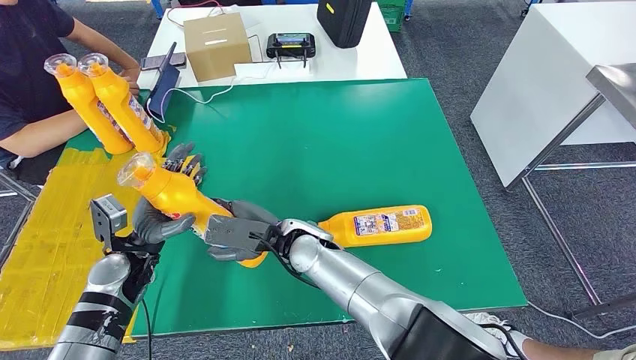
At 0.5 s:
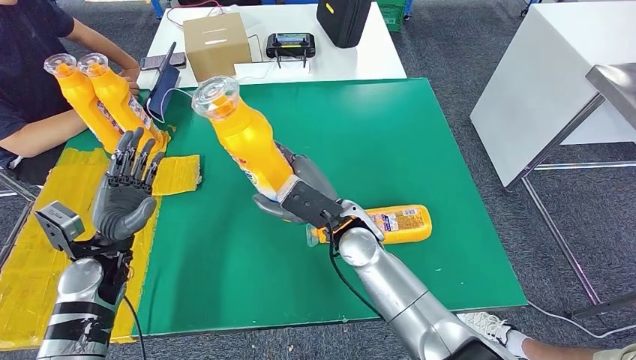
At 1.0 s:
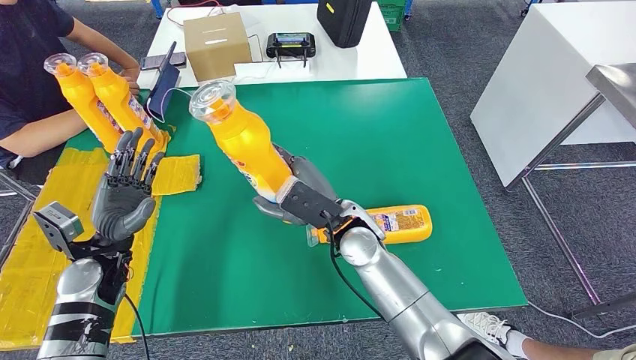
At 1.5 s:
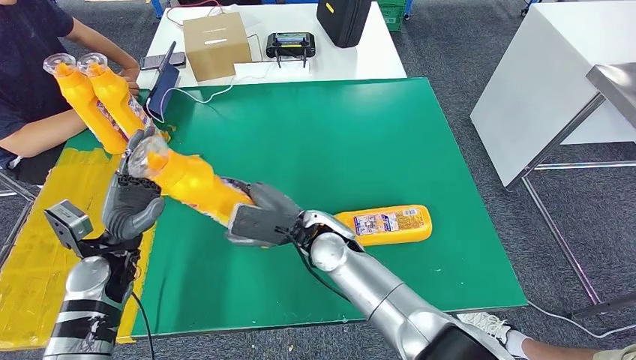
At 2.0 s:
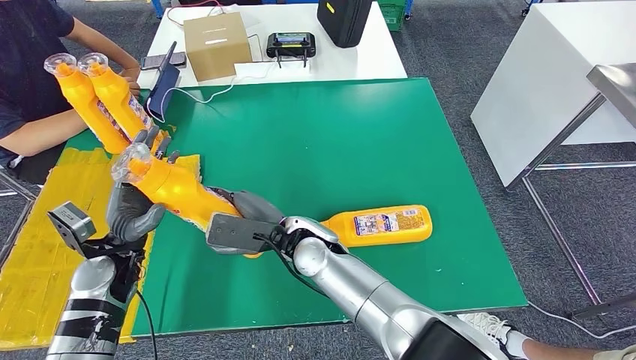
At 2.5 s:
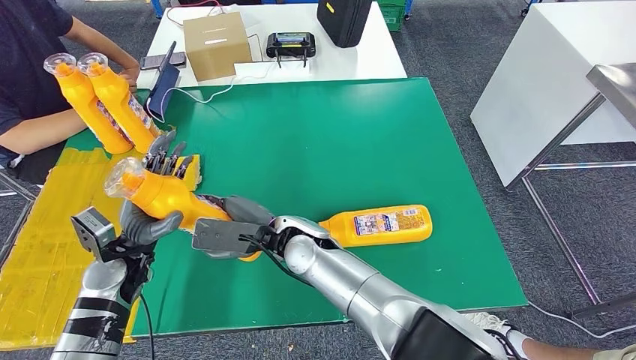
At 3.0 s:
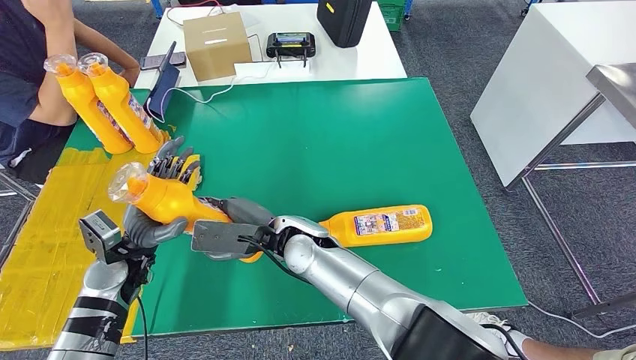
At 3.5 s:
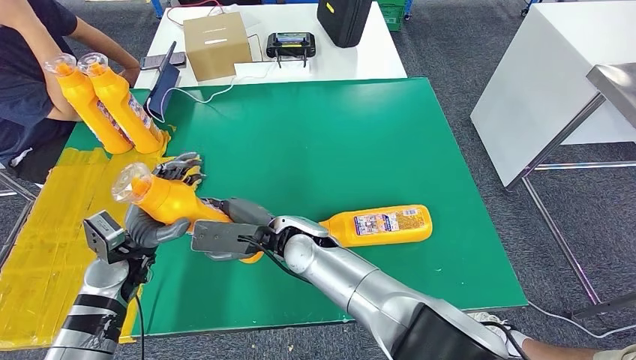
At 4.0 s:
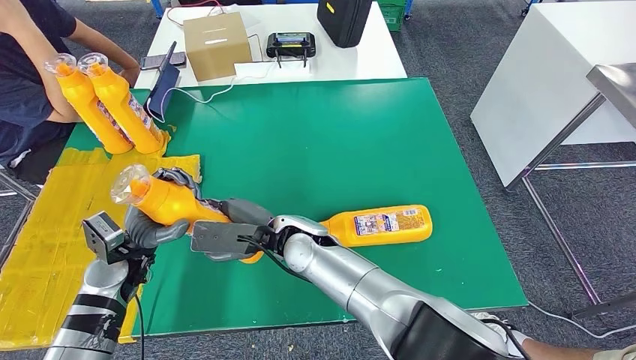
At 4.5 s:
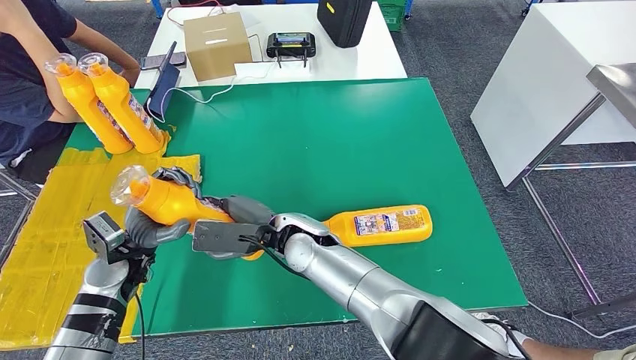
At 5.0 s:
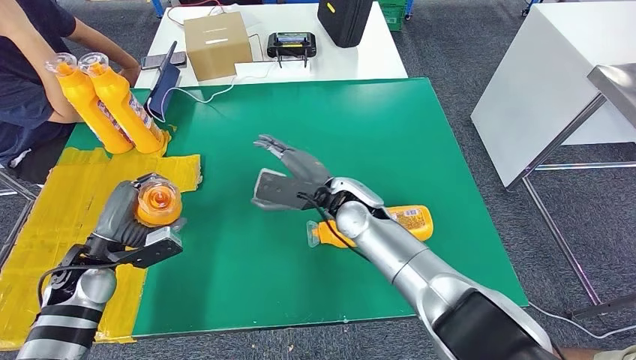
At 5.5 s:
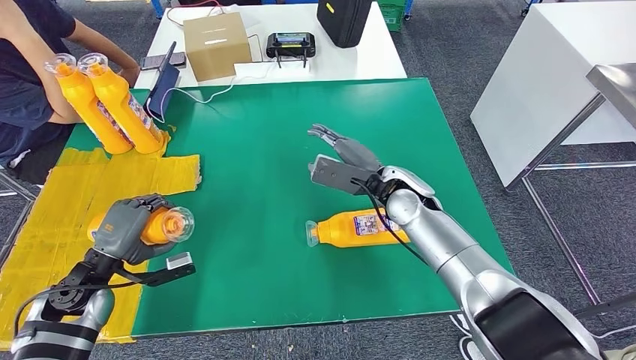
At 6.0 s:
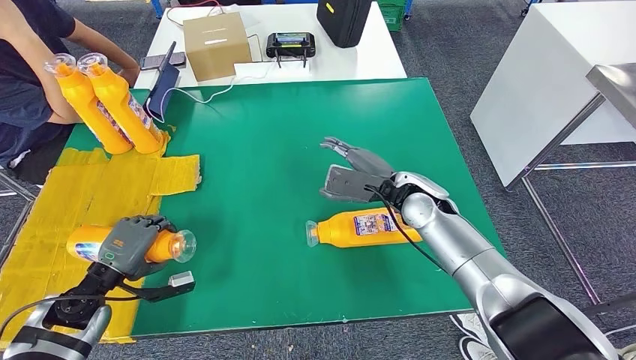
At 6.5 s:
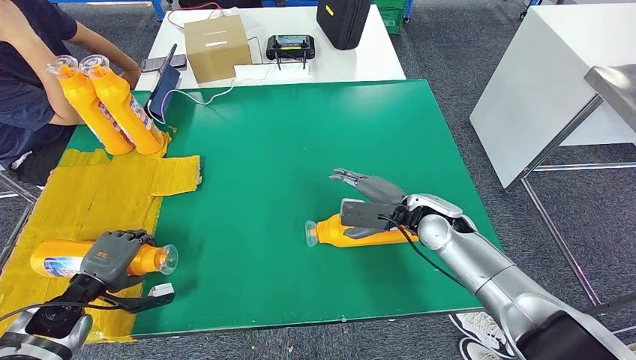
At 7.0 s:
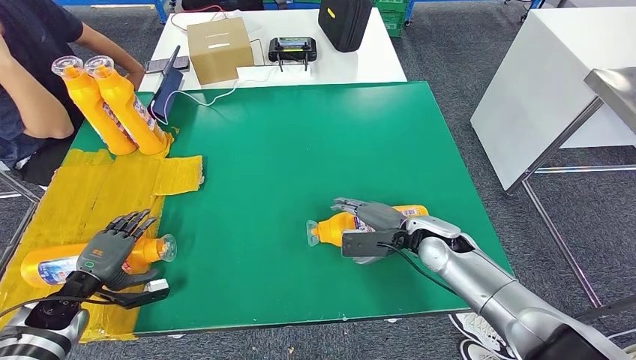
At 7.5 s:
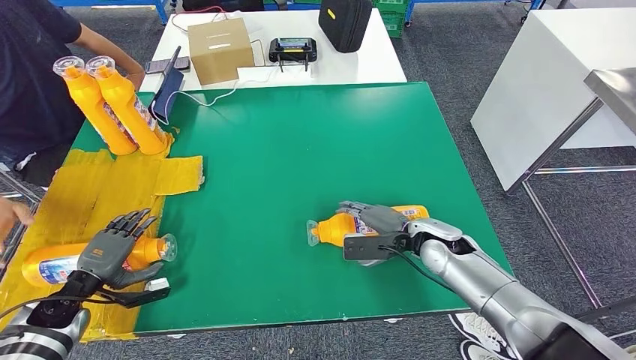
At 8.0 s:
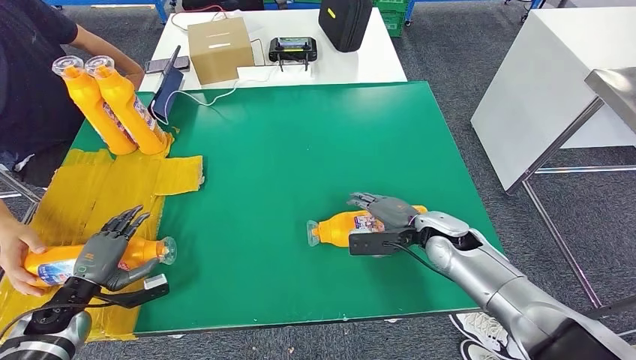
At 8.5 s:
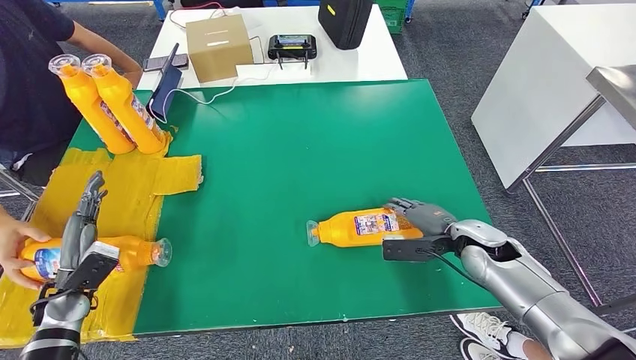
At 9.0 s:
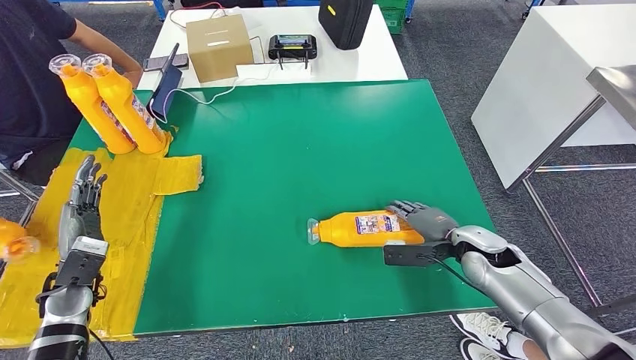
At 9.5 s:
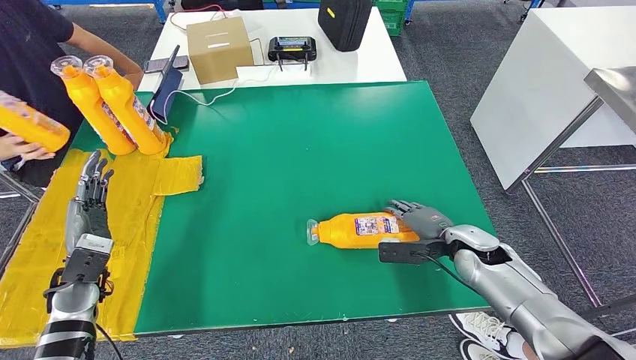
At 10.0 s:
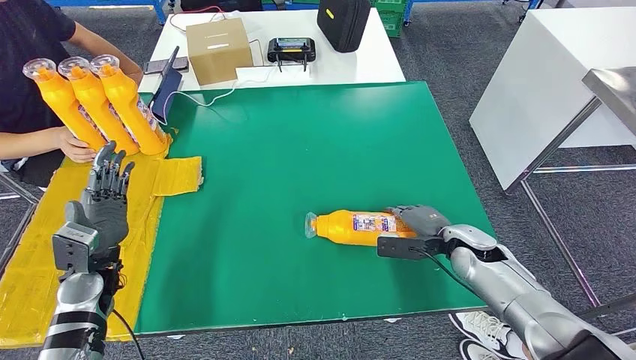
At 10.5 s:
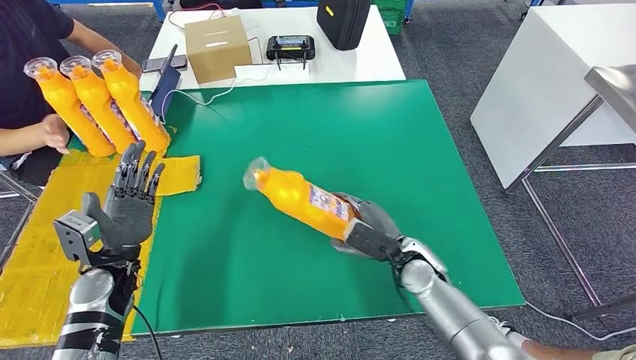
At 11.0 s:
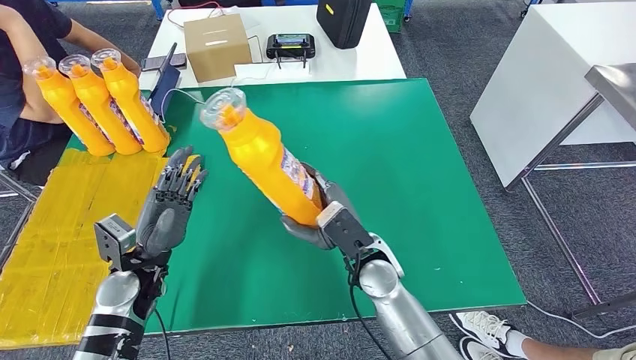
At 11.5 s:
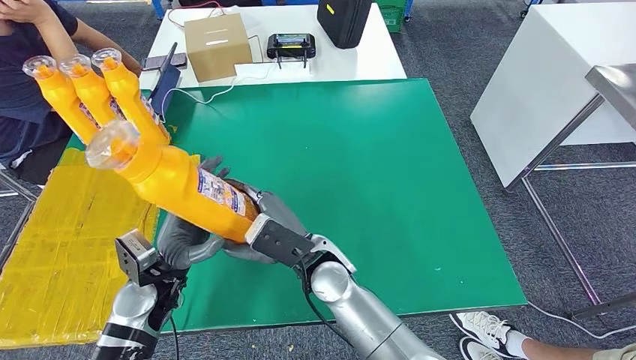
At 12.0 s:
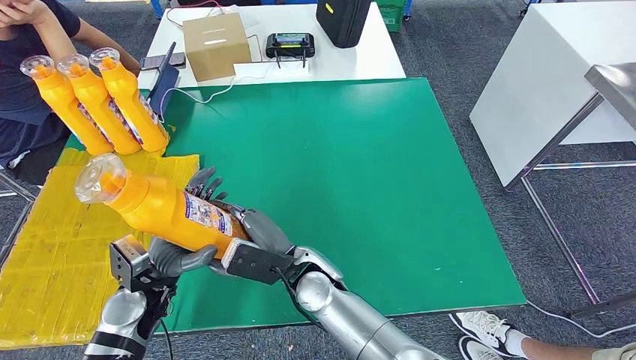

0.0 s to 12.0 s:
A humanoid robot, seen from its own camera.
Step, 2.5 to 7.0 s: Flip the fast-moving consumer goods bottle to the front side.
Step, 9.5 to 10.5 s: Pick up the fast-moving consumer goods bottle from the table.
0.0 to 2.0 s: The right hand goes to the right and returns, about 10 cm each way.
2.0 to 4.0 s: There are only small adjustments of the hands.

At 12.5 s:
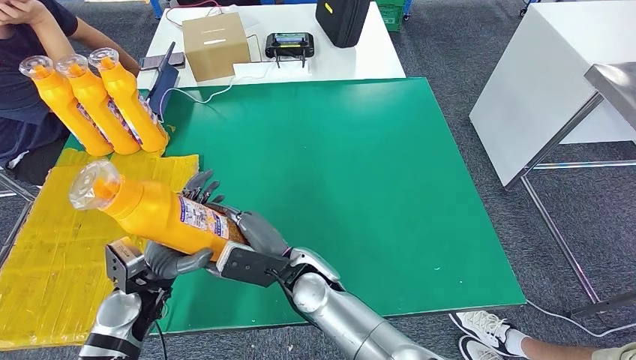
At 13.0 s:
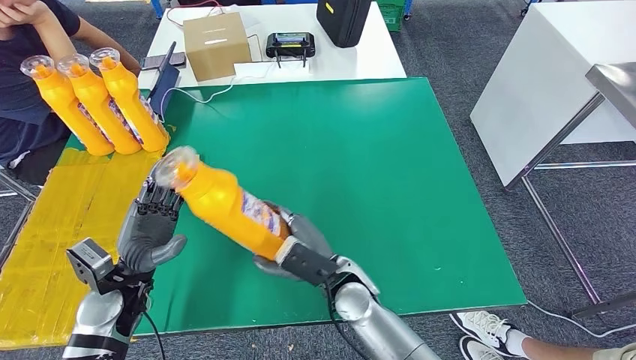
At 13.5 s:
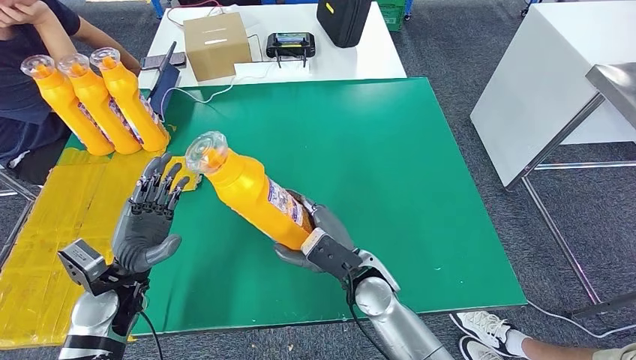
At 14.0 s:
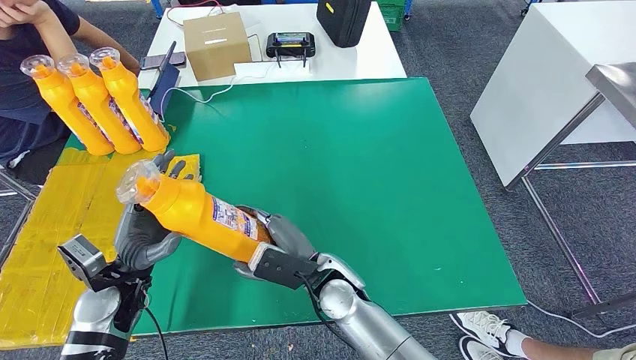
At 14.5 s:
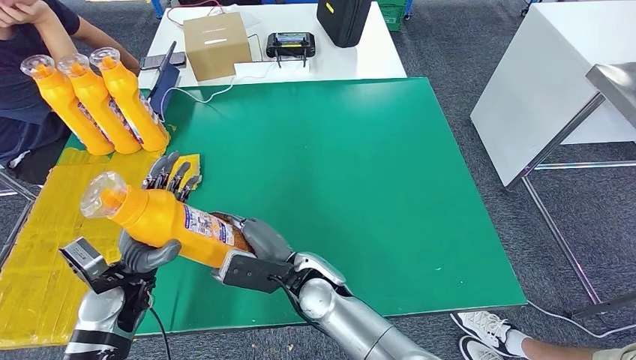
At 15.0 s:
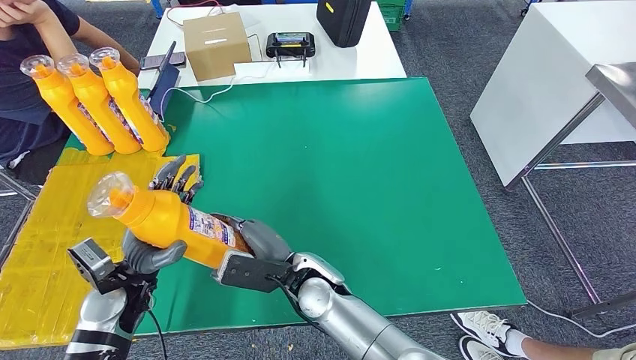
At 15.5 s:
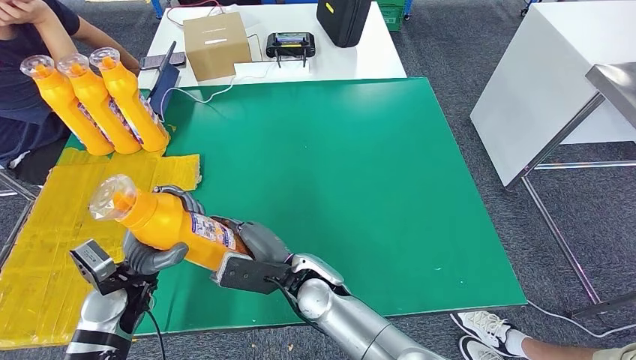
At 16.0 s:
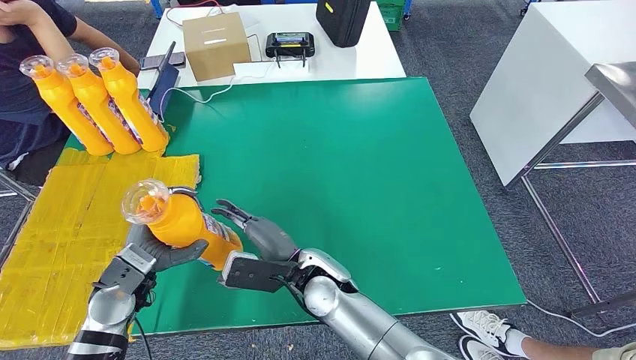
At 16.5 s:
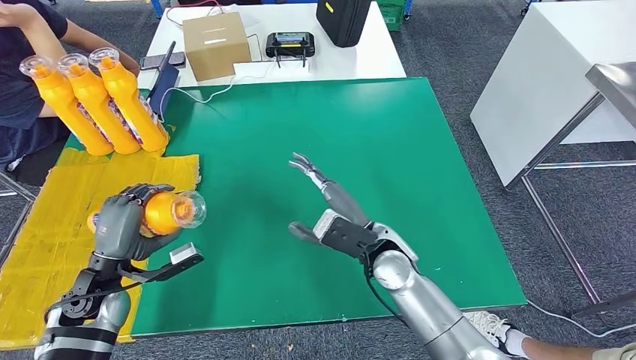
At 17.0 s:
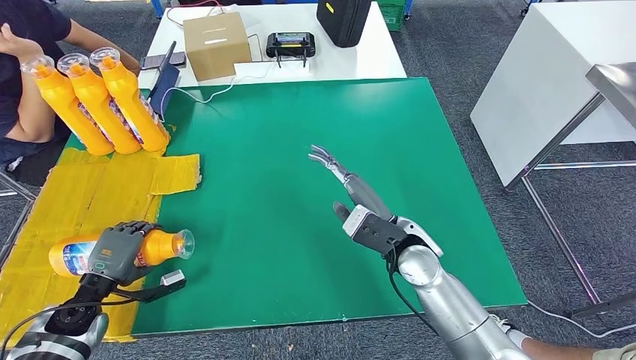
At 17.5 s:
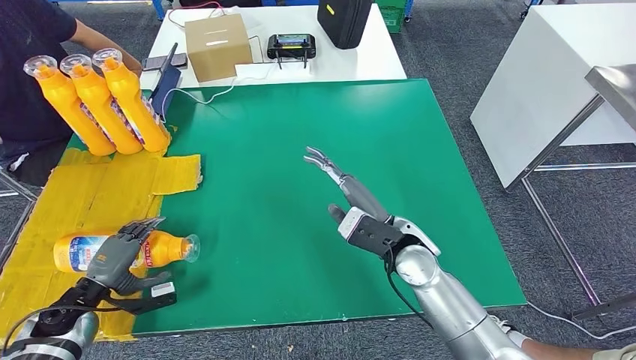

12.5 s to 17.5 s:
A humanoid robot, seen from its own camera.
Step, 15.5 to 17.5 s: Flip the fast-moving consumer goods bottle to the front side.
12.5 to 15.0 s: The right hand moves approximately 10 cm to the right and comes back.

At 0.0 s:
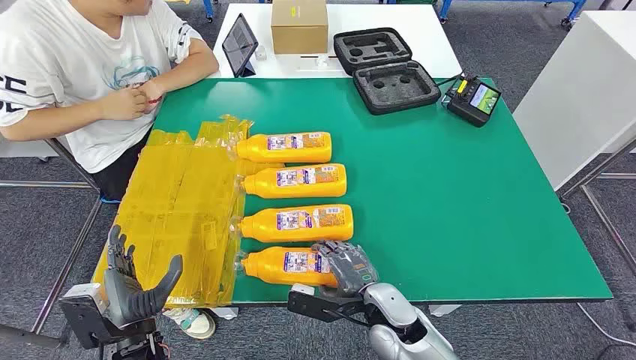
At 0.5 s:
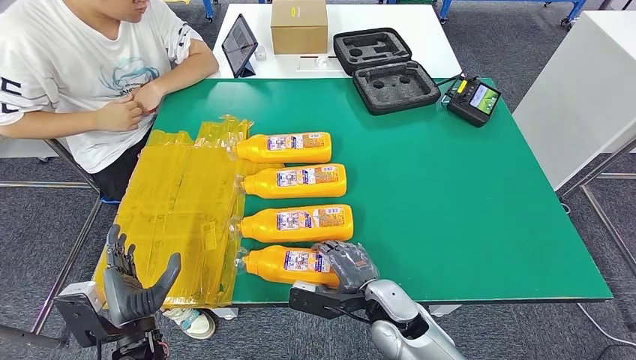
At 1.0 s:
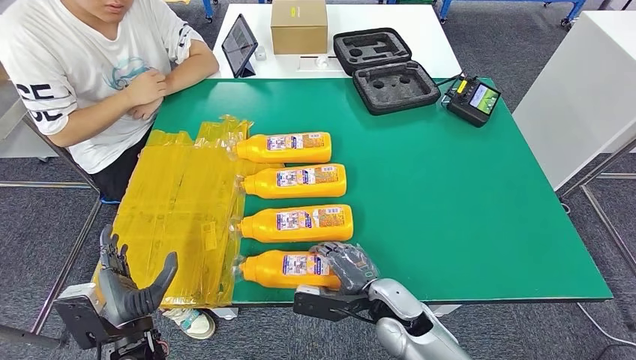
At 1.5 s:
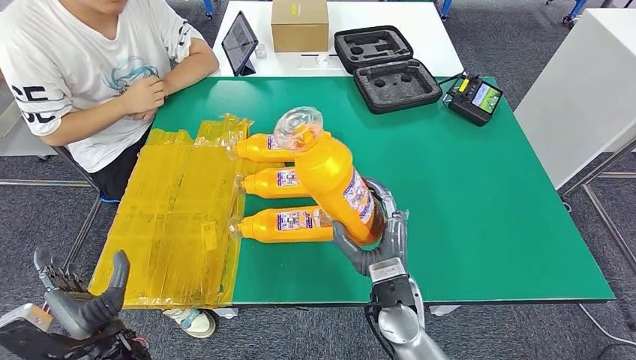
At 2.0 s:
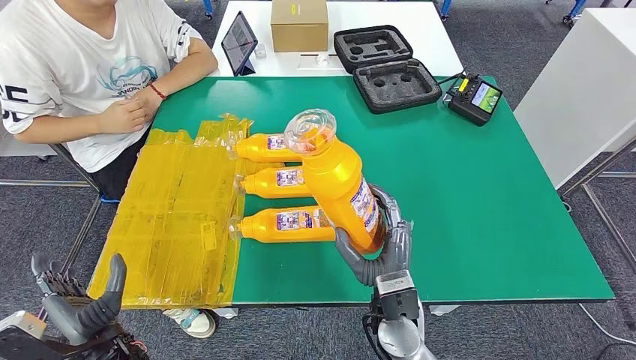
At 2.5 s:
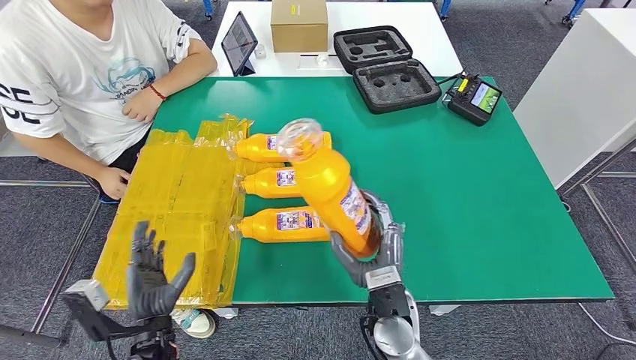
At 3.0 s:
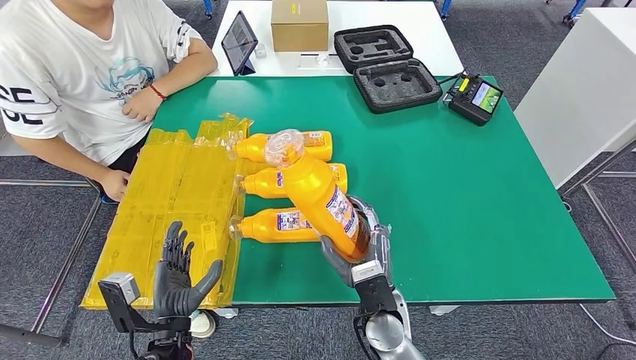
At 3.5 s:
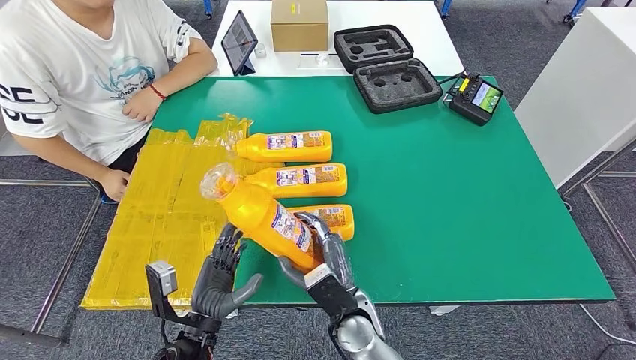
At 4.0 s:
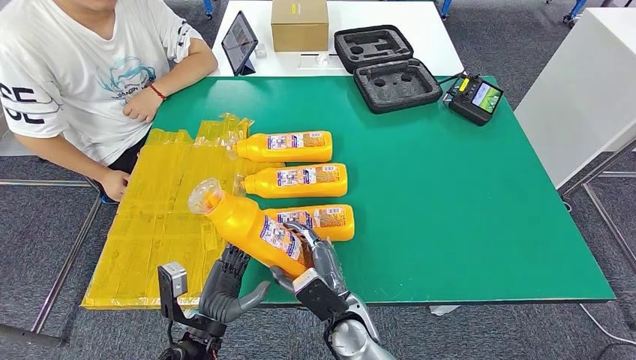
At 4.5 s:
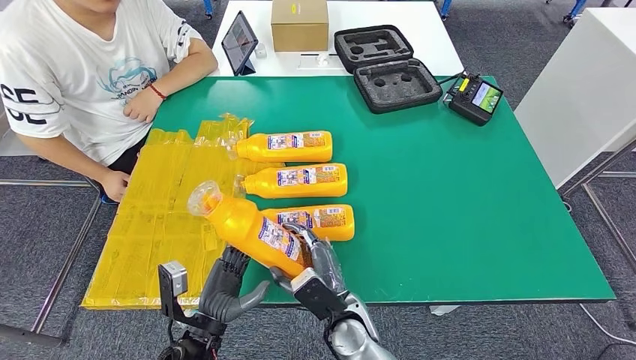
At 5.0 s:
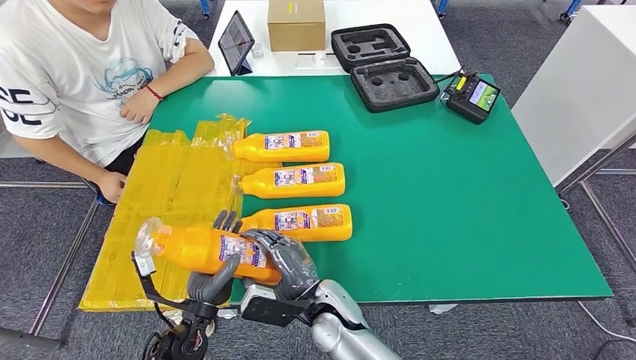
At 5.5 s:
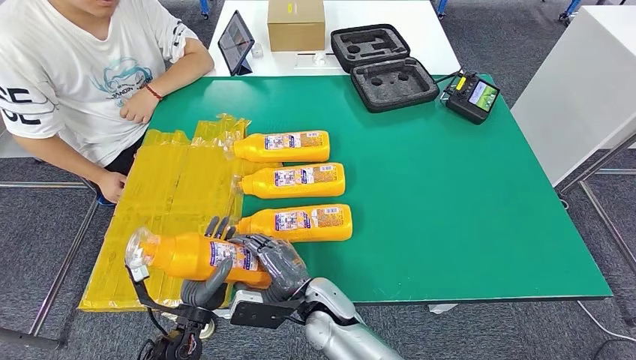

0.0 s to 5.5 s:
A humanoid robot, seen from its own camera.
Step, 0.0 to 2.5 s: Take the fast-moving consumer goods bottle from the table.
2.0 to 3.5 s: The right hand moves to the left and downward, some 10 cm, while the left hand is displaced to the right by about 10 cm.
3.5 to 5.5 s: The right hand heads to the left, covering some 5 cm.
